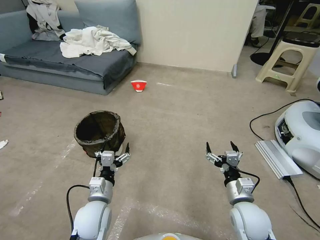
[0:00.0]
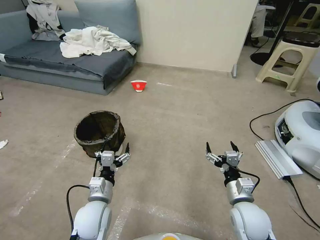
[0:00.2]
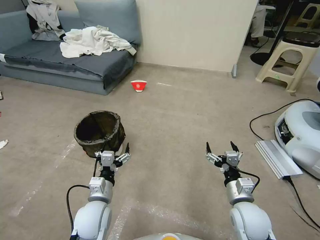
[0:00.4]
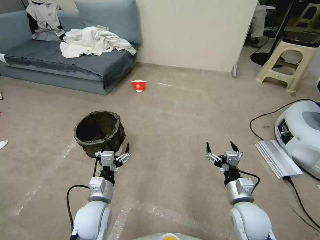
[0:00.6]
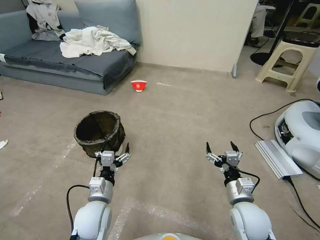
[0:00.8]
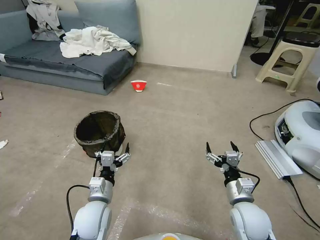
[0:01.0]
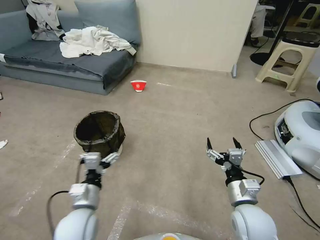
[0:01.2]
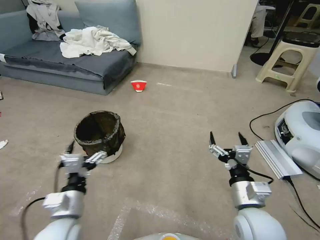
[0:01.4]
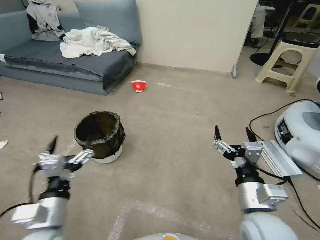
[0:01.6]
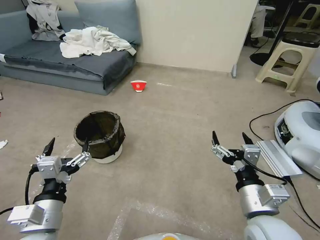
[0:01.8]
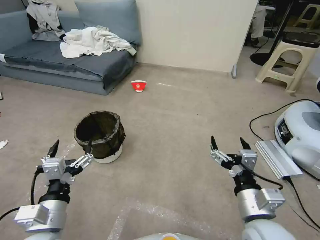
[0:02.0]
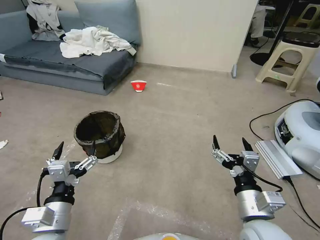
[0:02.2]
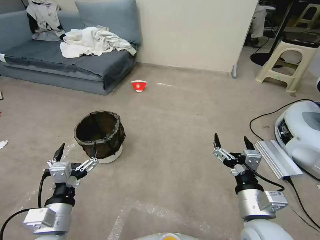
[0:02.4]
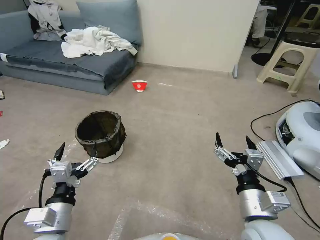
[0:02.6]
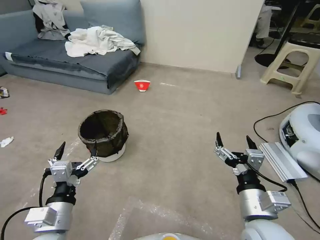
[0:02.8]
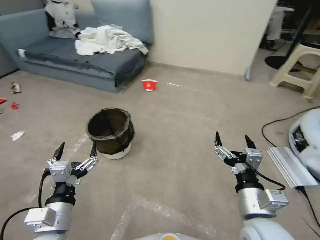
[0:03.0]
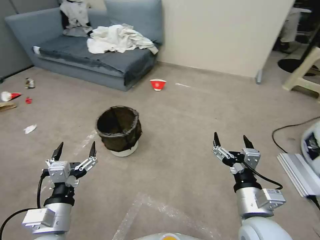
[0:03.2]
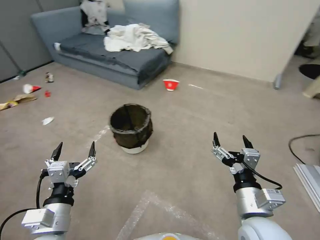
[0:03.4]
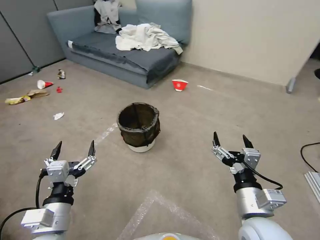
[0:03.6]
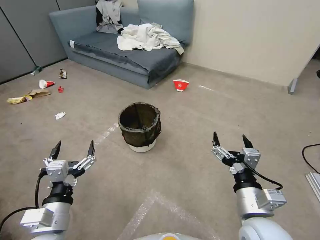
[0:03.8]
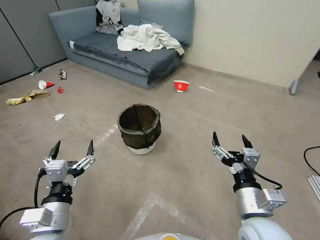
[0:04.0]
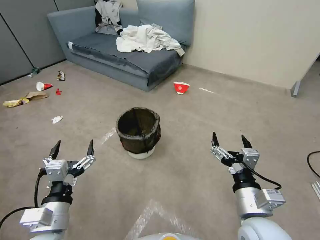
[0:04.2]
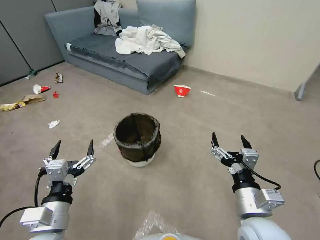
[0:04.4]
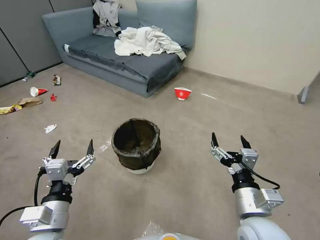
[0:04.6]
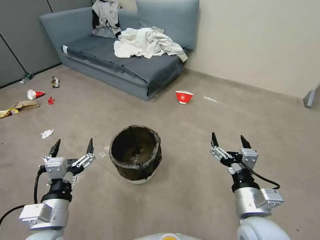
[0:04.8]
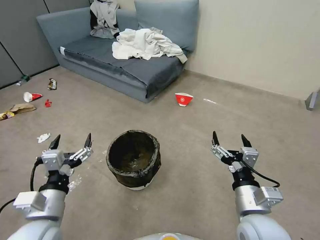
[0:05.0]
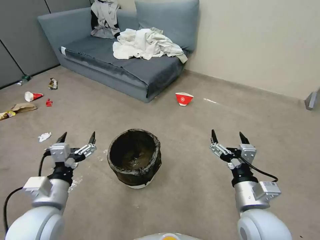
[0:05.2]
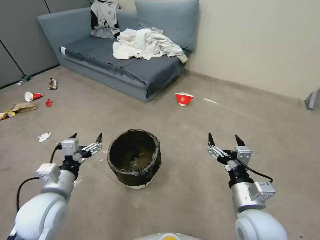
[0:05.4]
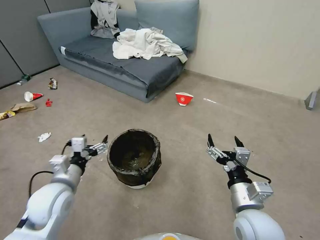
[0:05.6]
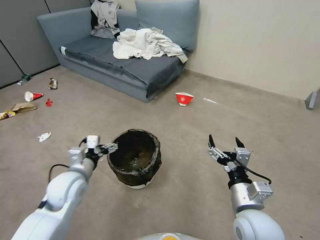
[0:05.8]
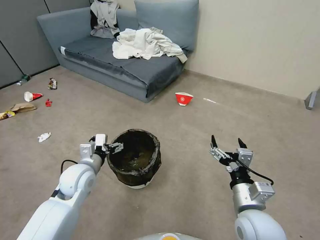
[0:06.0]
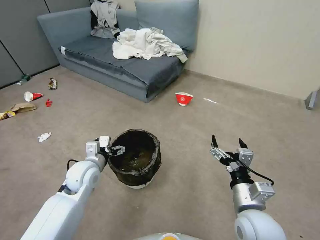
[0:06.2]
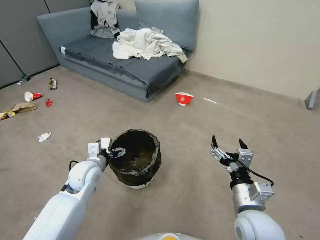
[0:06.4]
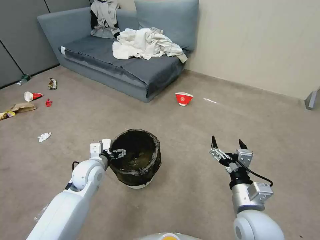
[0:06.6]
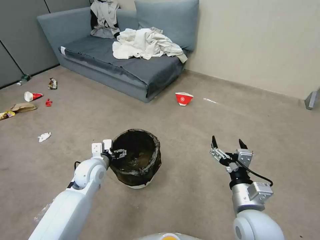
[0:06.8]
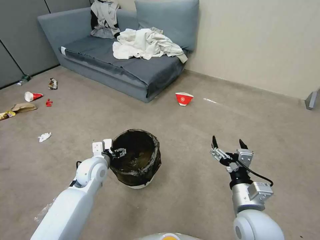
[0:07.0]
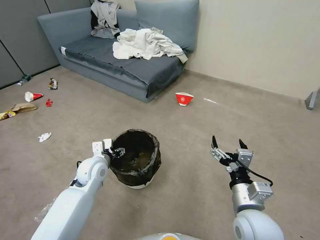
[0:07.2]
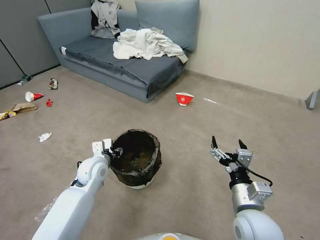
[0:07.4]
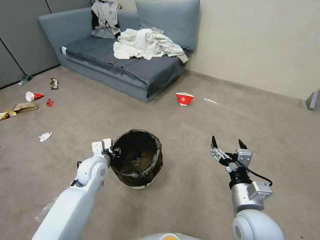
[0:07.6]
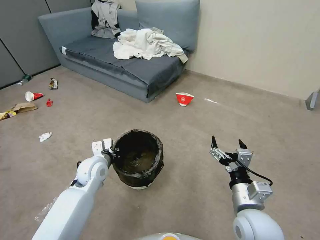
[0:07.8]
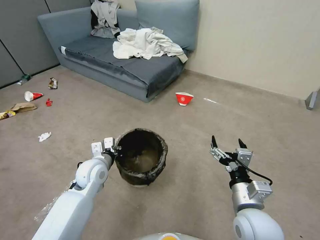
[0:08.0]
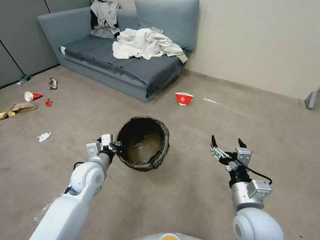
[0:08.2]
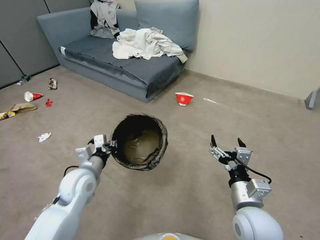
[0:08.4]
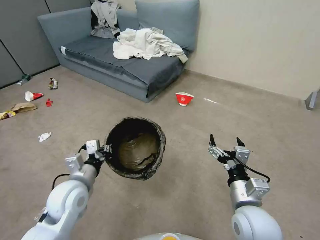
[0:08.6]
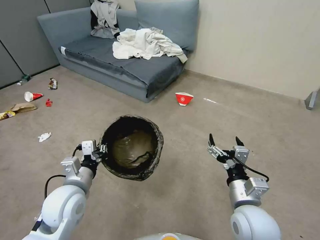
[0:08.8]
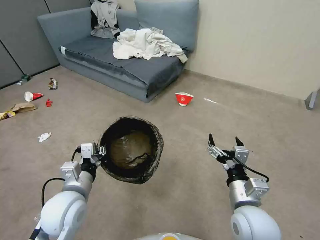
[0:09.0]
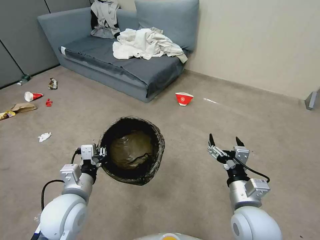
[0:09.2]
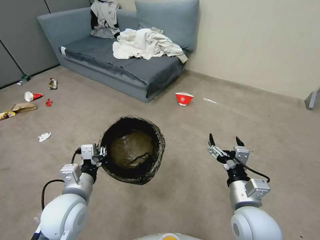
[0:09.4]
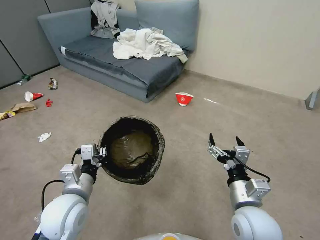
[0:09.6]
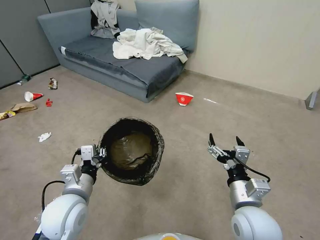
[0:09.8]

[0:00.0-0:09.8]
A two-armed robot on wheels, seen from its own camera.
Task of the whole recording: Pick up the trash can from the floor.
0:04.2 to 0:05.6: The left gripper travels forward by about 10 cm.
0:05.6 to 0:07.0: The left gripper heads forward, downward and to the right, covering about 15 cm.
0:07.0 to 0:08.4: The left gripper closes up.
0:08.4 to 0:09.8: The left gripper shifts some 10 cm backward.
